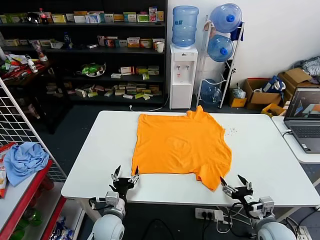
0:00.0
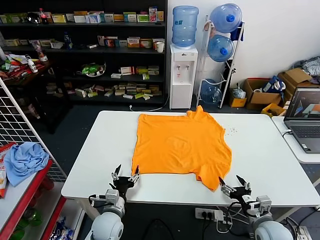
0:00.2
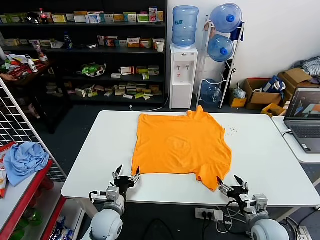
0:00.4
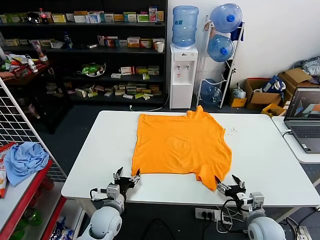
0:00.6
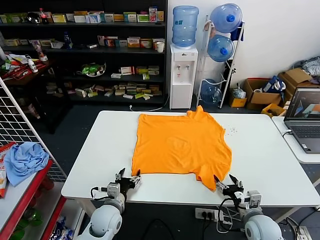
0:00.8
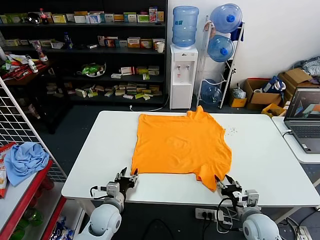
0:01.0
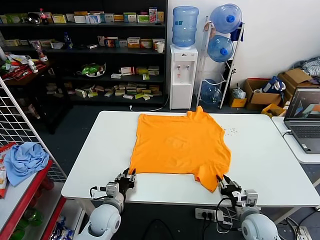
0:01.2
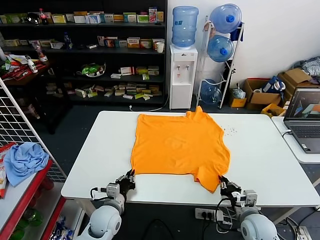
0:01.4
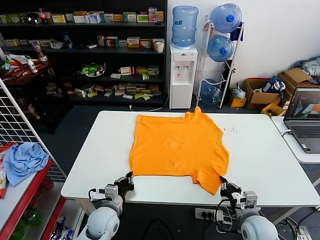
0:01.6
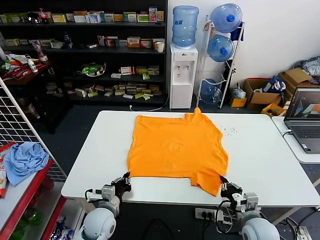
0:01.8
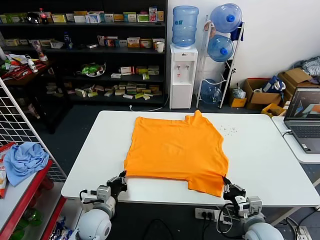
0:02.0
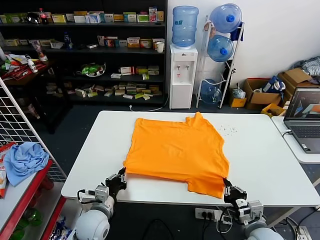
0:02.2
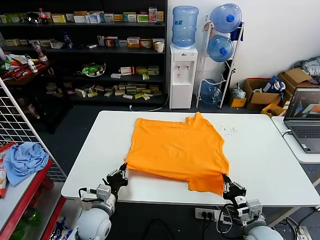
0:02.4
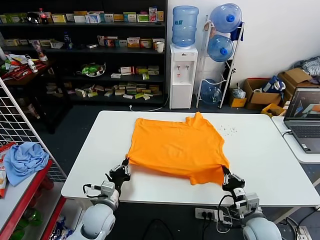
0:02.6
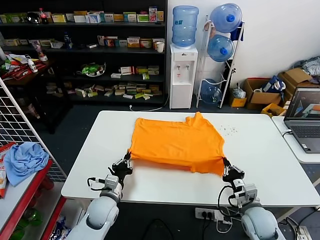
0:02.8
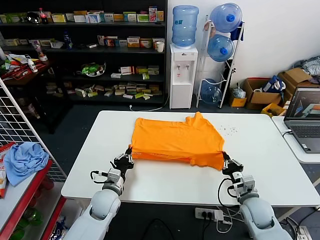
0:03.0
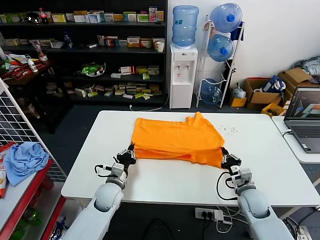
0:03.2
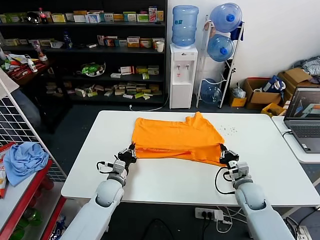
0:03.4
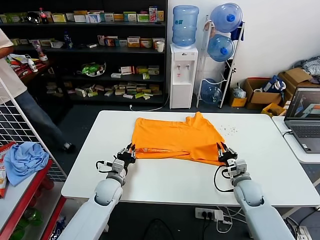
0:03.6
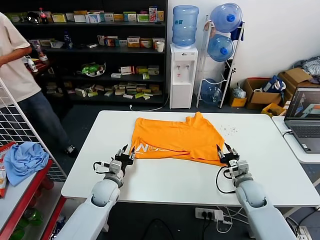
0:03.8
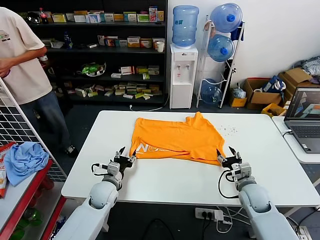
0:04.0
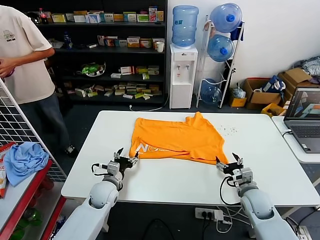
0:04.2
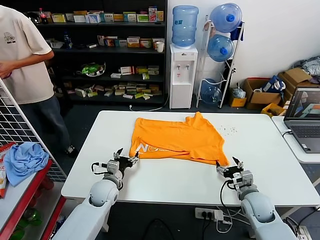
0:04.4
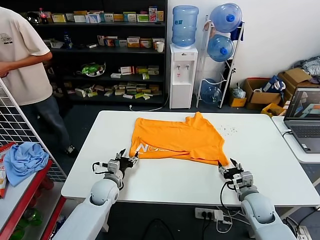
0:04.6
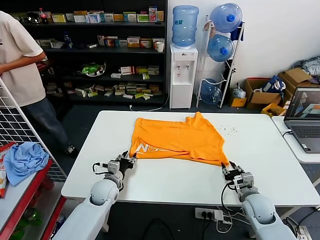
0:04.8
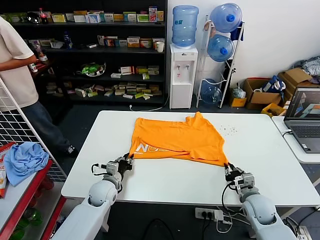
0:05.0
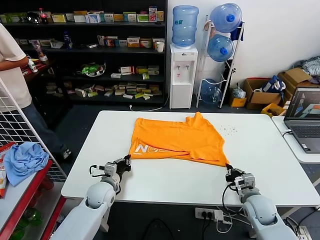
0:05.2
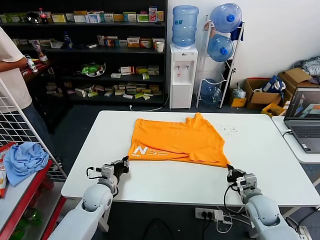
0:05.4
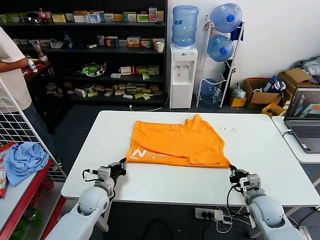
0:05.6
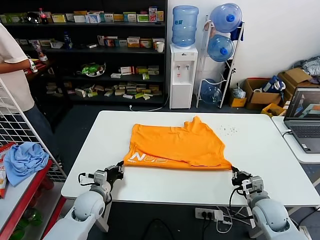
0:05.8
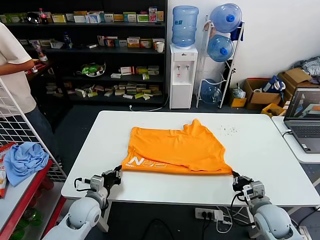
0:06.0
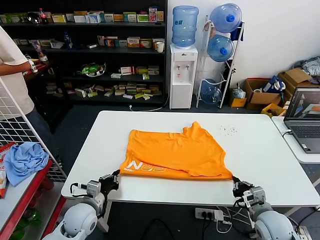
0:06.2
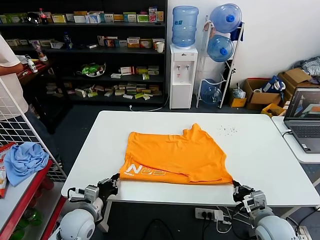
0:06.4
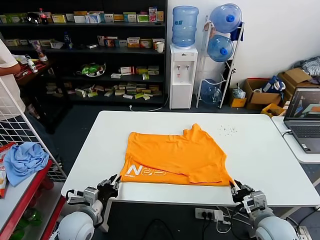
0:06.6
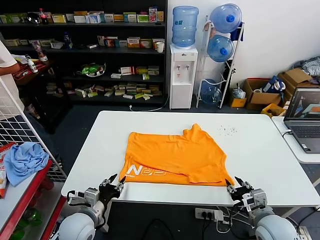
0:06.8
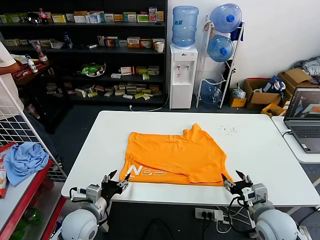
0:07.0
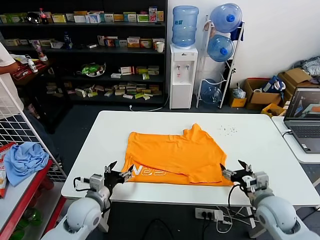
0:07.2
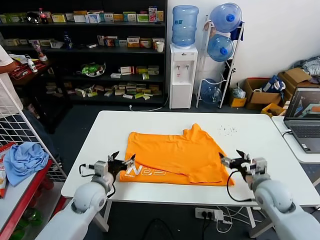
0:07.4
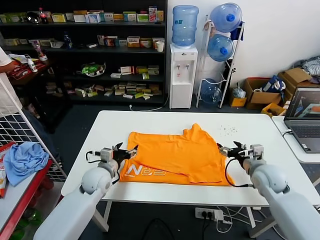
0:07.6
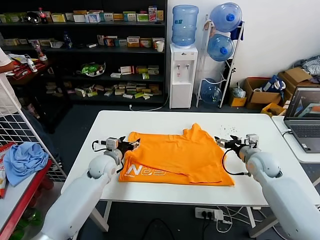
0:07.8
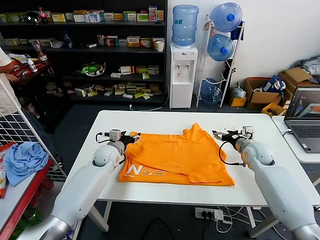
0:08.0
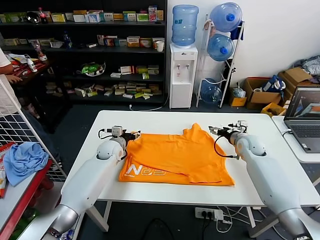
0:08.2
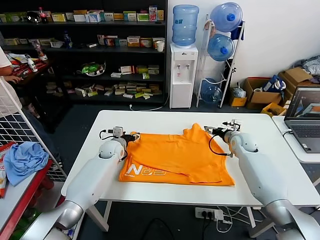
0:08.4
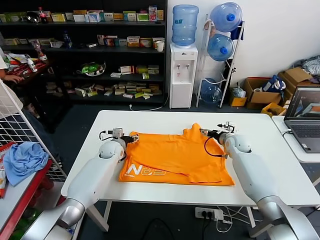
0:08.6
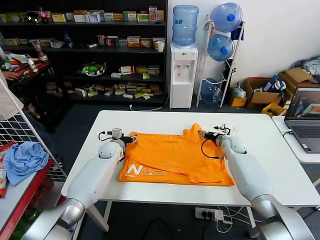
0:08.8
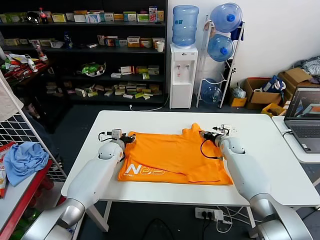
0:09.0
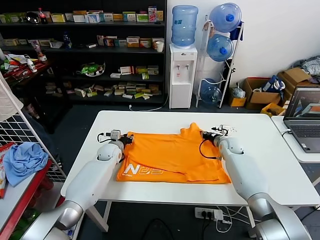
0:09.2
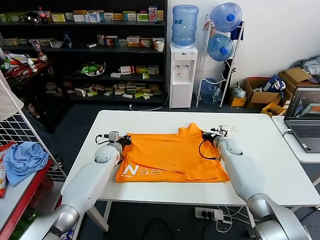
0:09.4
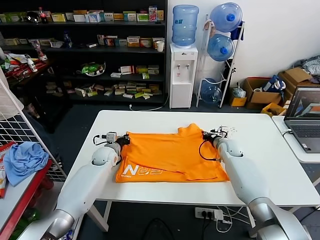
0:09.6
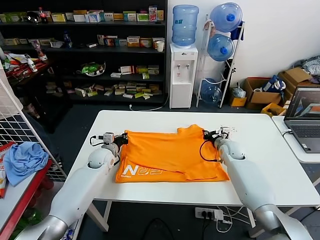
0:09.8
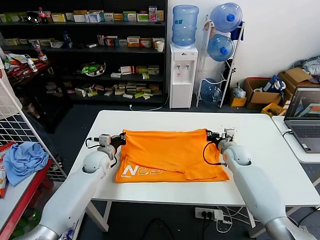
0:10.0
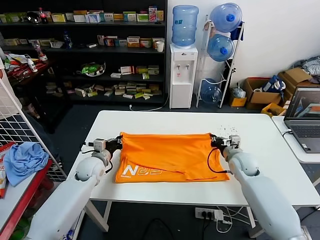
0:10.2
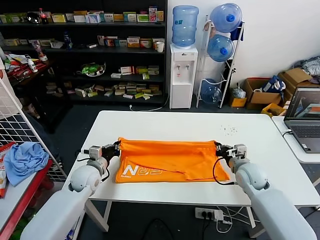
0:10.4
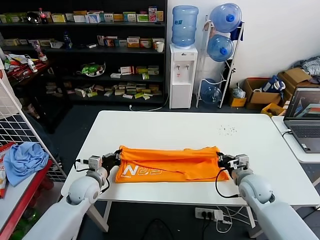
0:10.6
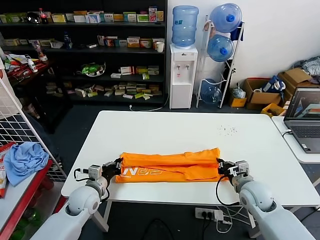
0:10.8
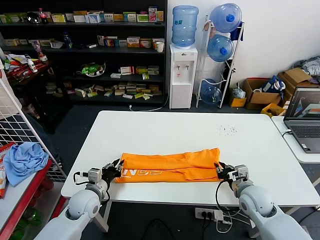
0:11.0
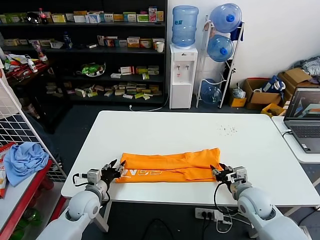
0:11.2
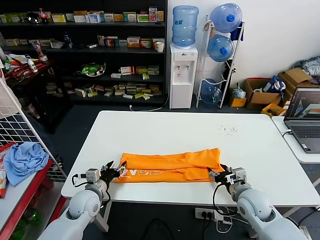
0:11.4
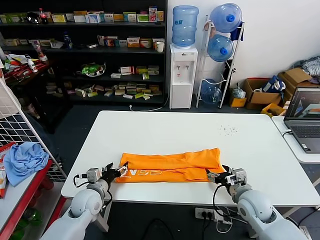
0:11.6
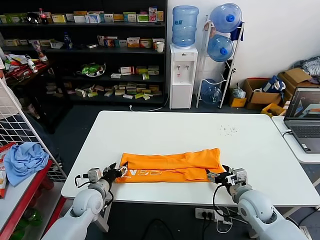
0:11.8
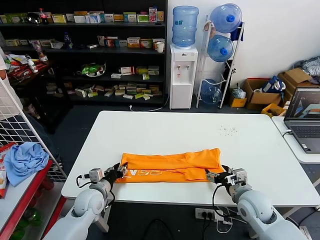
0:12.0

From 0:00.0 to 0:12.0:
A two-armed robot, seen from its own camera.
Task of the whole recording: fold and organize the clothes.
Step, from 0:00.0 to 0:01.6: use both grippers simultaneously to clamp the lower edge of the clothing fabric.
Step, from 0:01.8 to 0:03.8: use both grippers to drag the lower edge of the fabric forward and fold it over the upper edge.
Step, from 0:04.0 to 0:06.6: Drag the clothes downward with both gripper.
Step, from 0:06.8 to 0:09.4: use both grippers simultaneously to clamp the upper edge of the clothing fabric.
Step, from 0:09.6 to 0:11.0: use both grippers to drag the upper edge of the fabric backward and fold it over the lower edge.
From 0:01.6 to 0:03.0: Both grippers move forward, roughly 5 cm.
From 0:03.0 to 0:04.4: The left gripper opens its fingers, while the right gripper opens its fingers.
From 0:04.4 to 0:06.0: Both grippers travel together backward, some 5 cm. The left gripper closes its fingers; the right gripper closes.
From 0:06.0 to 0:07.6: The right gripper travels forward and upward by about 15 cm, and opens. Meanwhile the left gripper shifts roughly 10 cm forward, and opens.
From 0:07.6 to 0:09.0: The left gripper travels forward by about 15 cm. Meanwhile the right gripper travels forward and downward by some 20 cm, and closes up.
From 0:09.0 to 0:10.4: Both grippers travel together backward, some 15 cm. The right gripper closes, while the left gripper closes its fingers.
From 0:10.4 to 0:12.0: Both grippers move backward, about 10 cm. The left gripper opens. The right gripper opens.

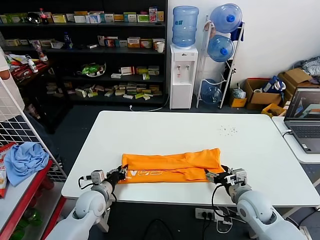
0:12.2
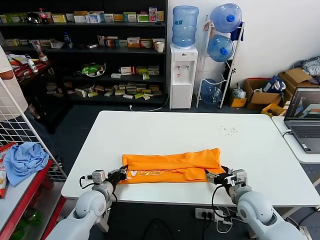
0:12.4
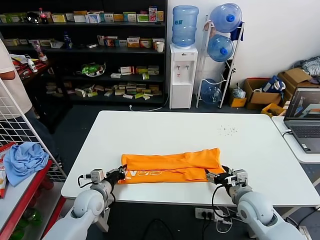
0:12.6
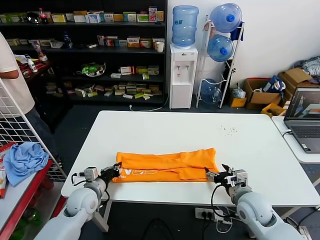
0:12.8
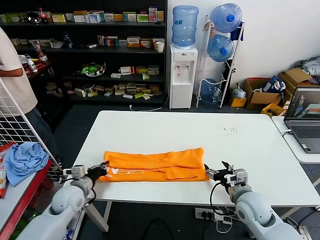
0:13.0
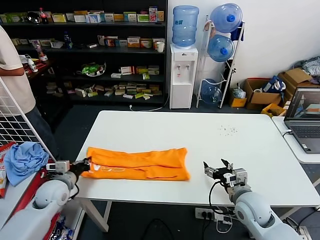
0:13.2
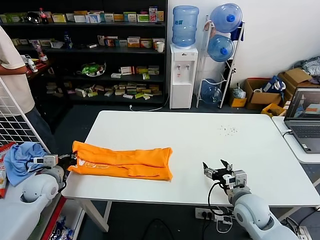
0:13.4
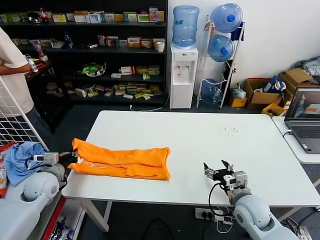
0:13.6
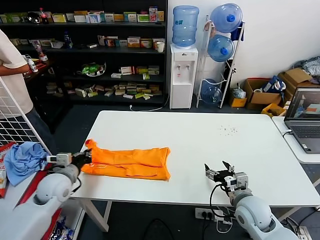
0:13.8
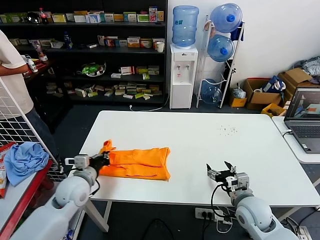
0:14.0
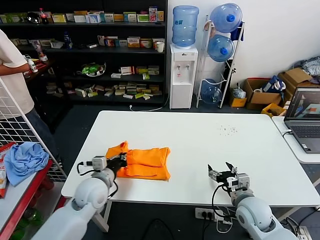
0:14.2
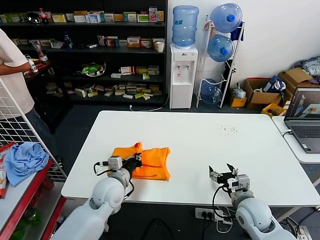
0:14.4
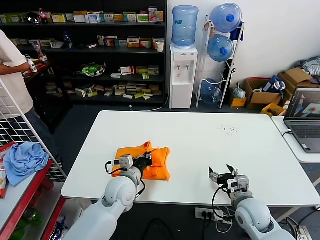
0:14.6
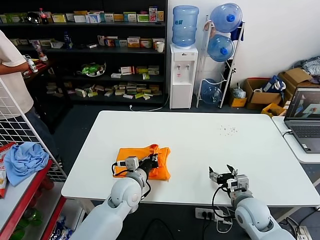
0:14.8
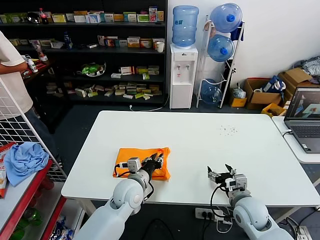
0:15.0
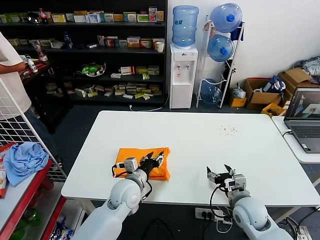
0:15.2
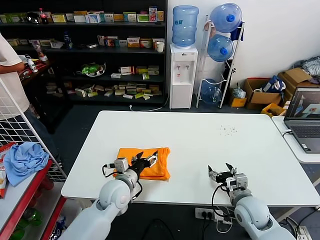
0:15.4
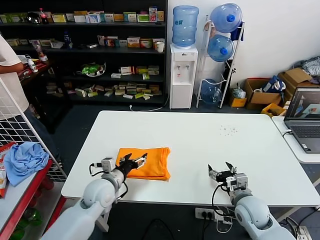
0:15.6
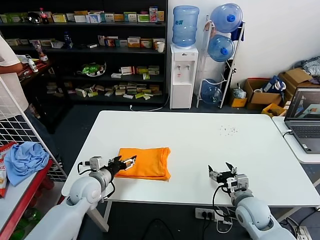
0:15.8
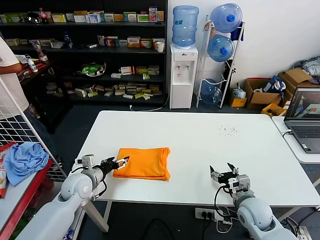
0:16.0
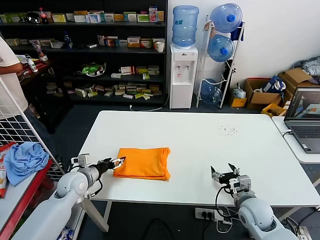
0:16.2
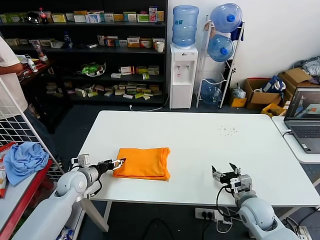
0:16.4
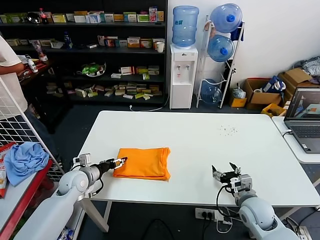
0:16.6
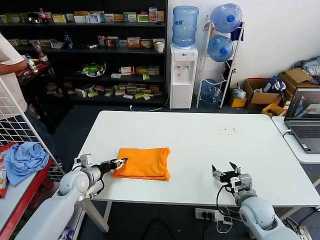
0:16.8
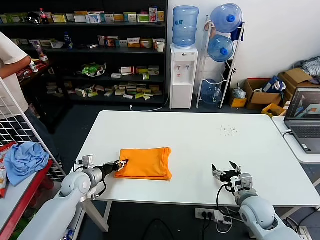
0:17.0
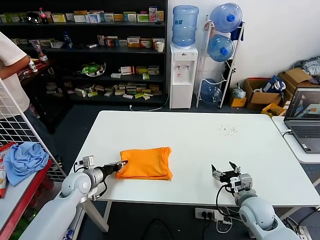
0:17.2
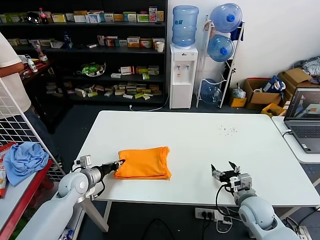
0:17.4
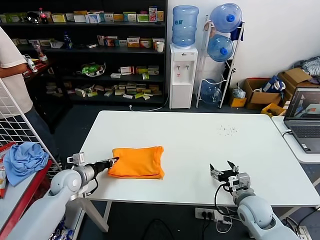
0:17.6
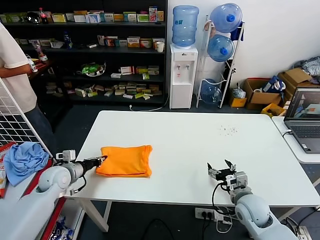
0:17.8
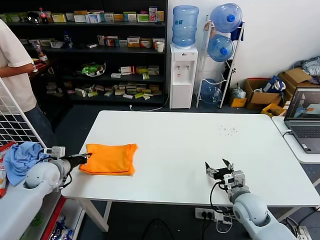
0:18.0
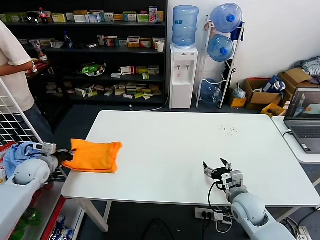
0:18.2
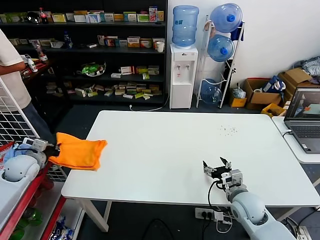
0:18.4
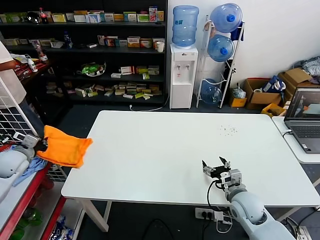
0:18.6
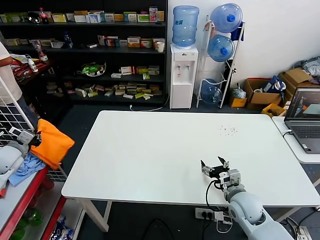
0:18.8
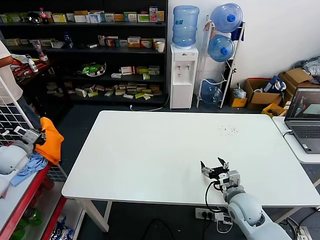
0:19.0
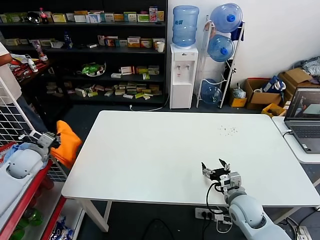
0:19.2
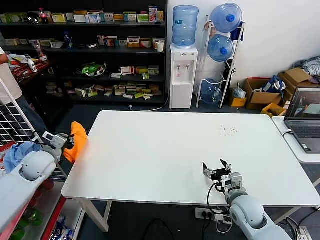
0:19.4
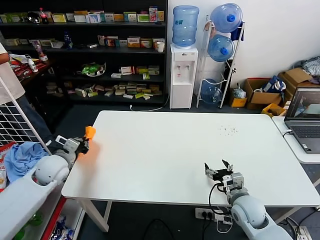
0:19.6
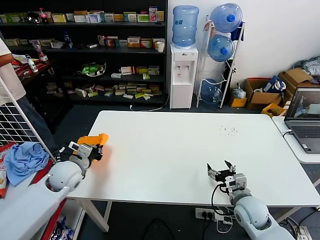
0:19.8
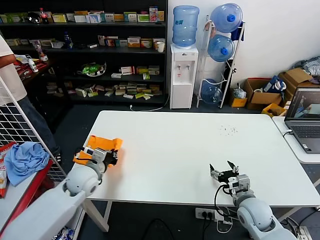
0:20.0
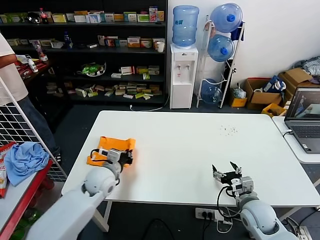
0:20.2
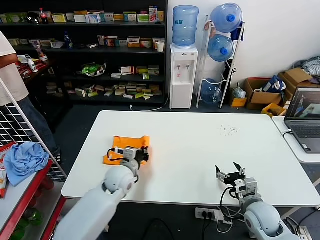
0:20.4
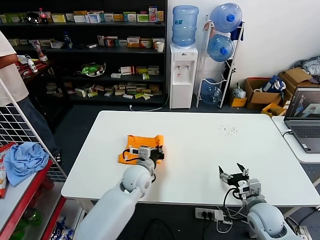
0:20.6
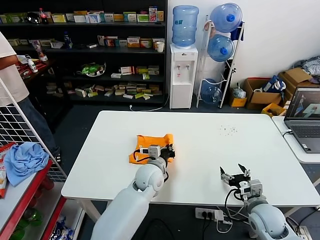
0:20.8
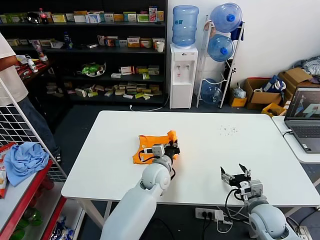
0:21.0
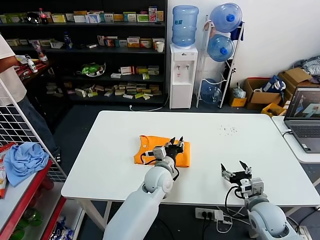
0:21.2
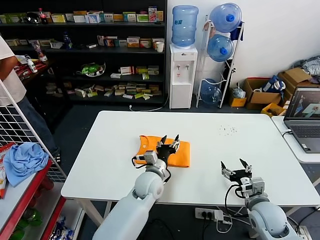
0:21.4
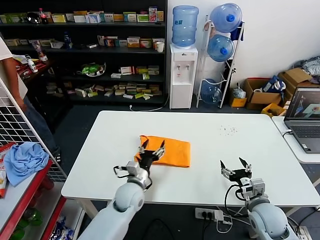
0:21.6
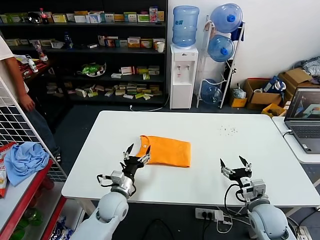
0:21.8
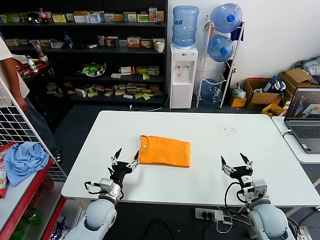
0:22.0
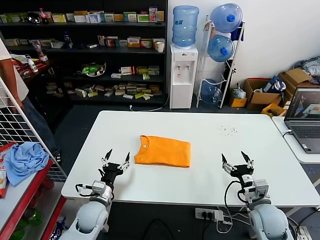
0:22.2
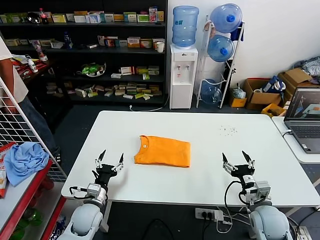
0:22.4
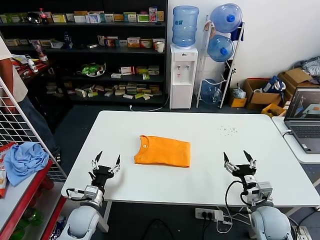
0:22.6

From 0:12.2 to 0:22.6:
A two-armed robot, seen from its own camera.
Task of the whole recording: fold and organize the clothes.
Step, from 0:12.6 to 0:15.2: use the left gripper to drag the left edge of the fabric to the left and folds it over the right edge.
Step, from 0:15.4 to 0:21.0: Flip the folded clothes over with left gripper.
From 0:12.2 to 0:13.6: The left gripper moves to the left and upward, some 15 cm.
From 0:13.6 to 0:15.2: The left gripper goes roughly 30 cm to the right, and opens up.
From 0:15.2 to 0:16.6: The left gripper travels to the left by some 20 cm, and opens up.
From 0:16.6 to 0:18.2: The left gripper goes about 15 cm to the left and upward, and closes up.
From 0:18.2 to 0:19.6: The left gripper heads to the right, covering roughly 5 cm.
From 0:19.6 to 0:21.2: The right gripper shifts by about 5 cm. The left gripper goes roughly 35 cm to the right, and opens its fingers.
From 0:21.2 to 0:22.6: The left gripper goes some 30 cm to the left and backward, and opens.
